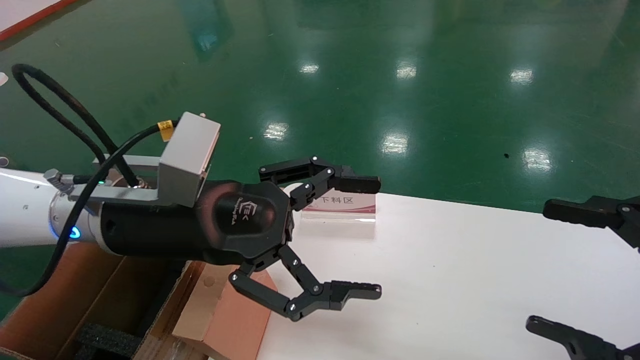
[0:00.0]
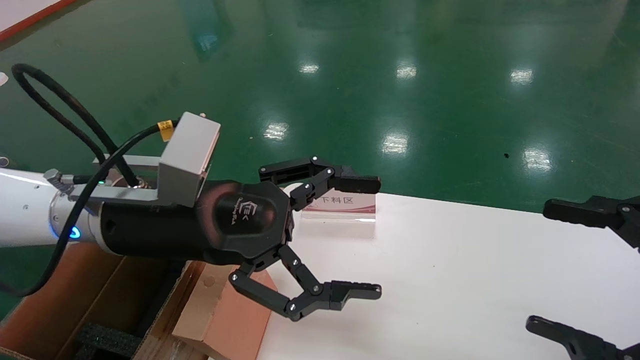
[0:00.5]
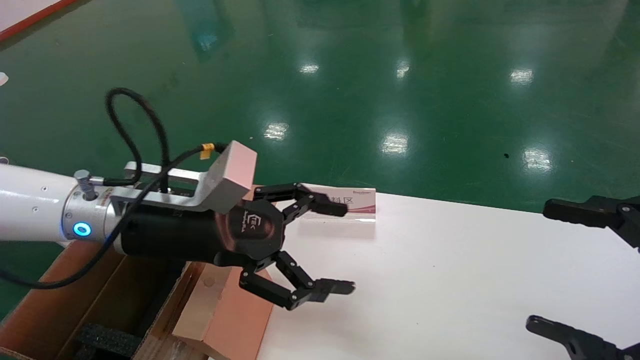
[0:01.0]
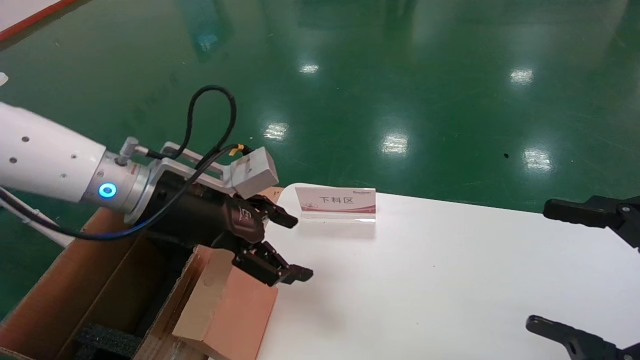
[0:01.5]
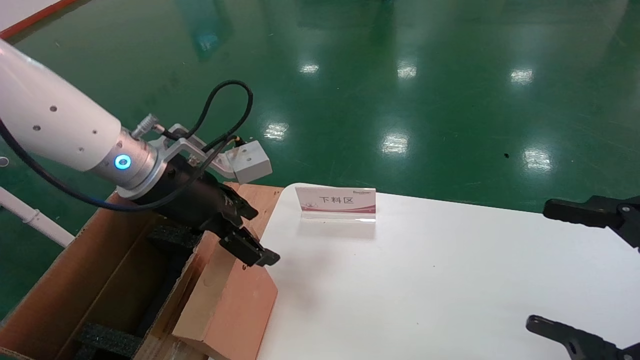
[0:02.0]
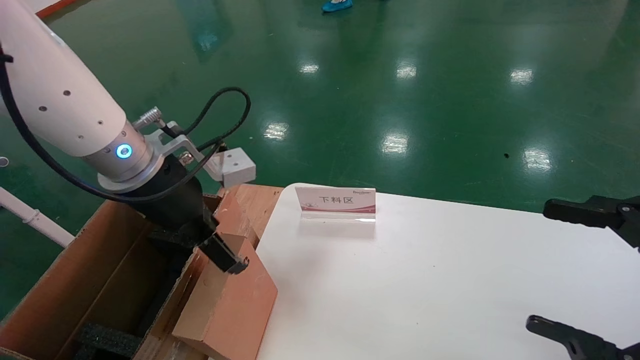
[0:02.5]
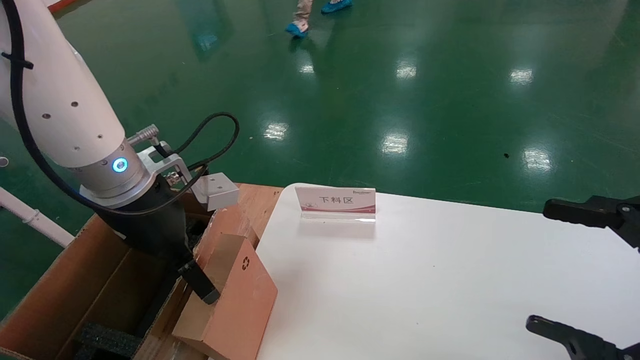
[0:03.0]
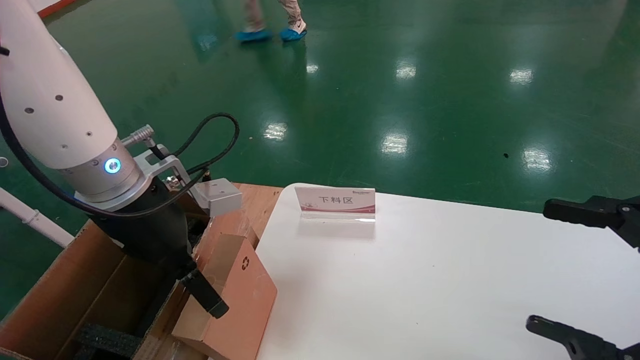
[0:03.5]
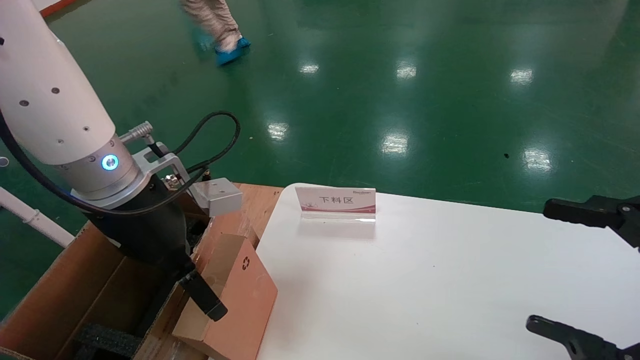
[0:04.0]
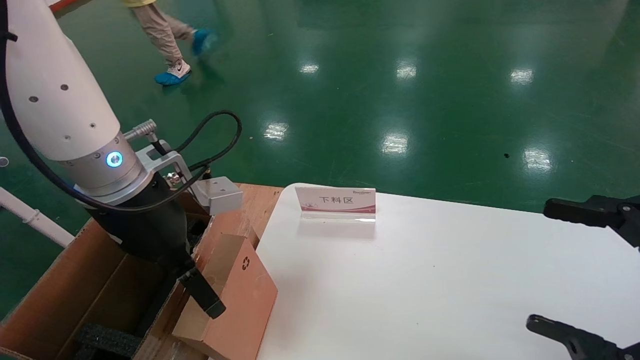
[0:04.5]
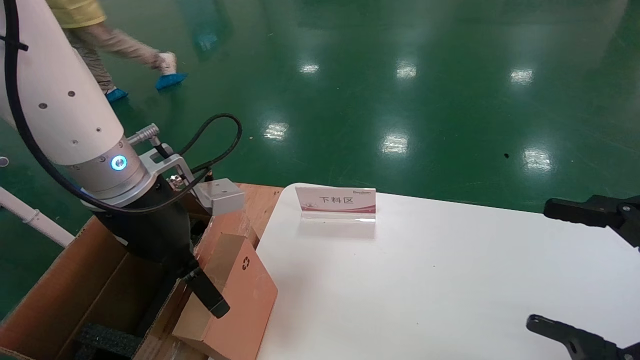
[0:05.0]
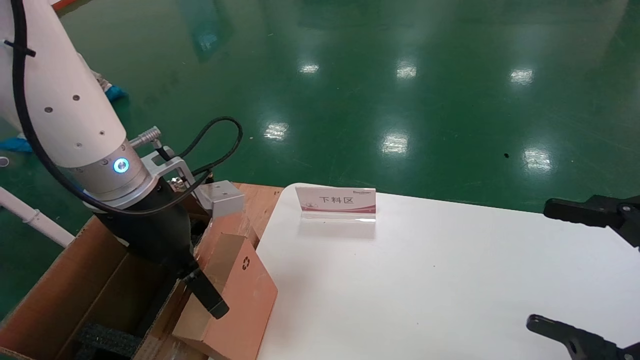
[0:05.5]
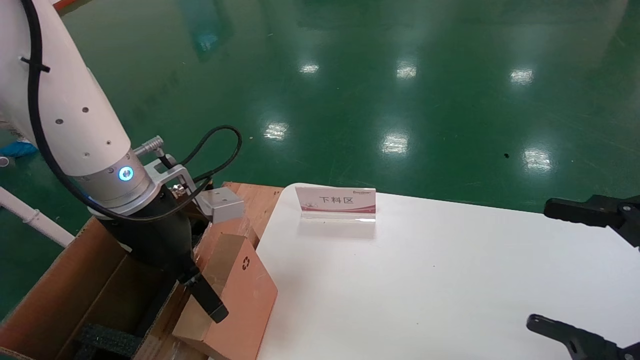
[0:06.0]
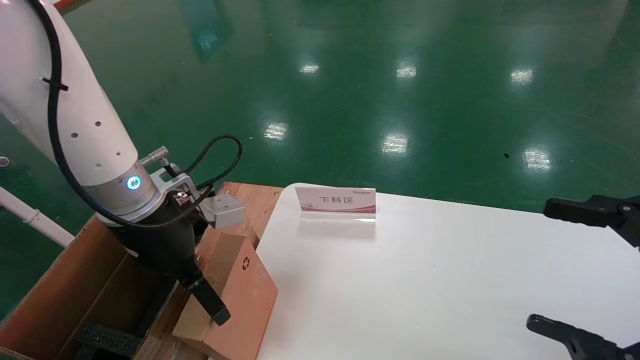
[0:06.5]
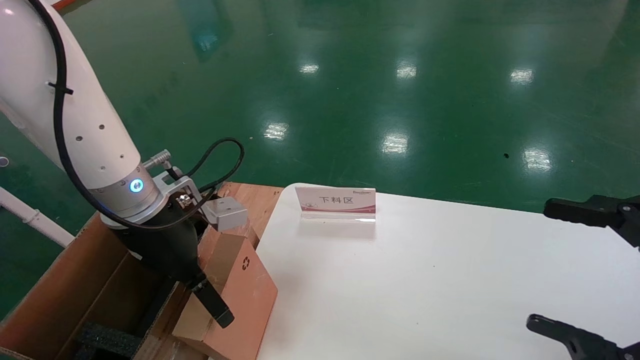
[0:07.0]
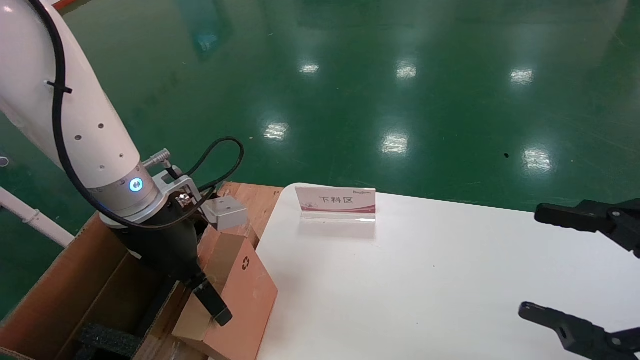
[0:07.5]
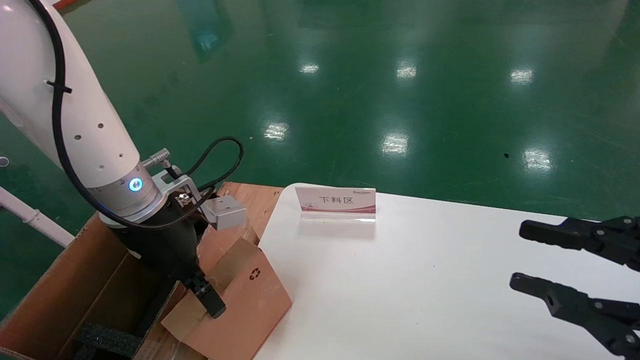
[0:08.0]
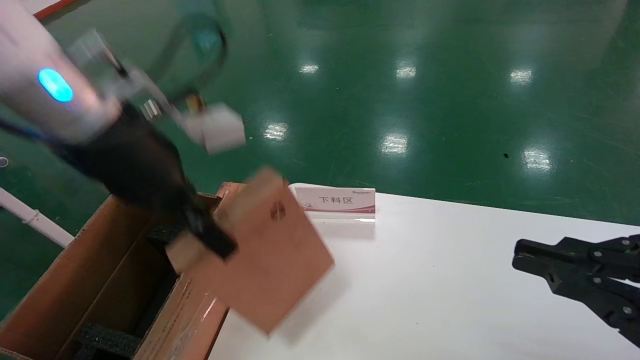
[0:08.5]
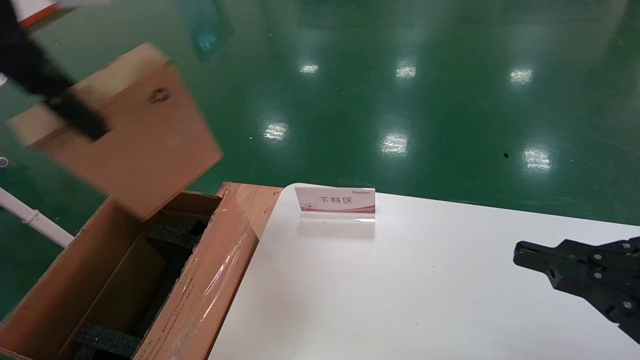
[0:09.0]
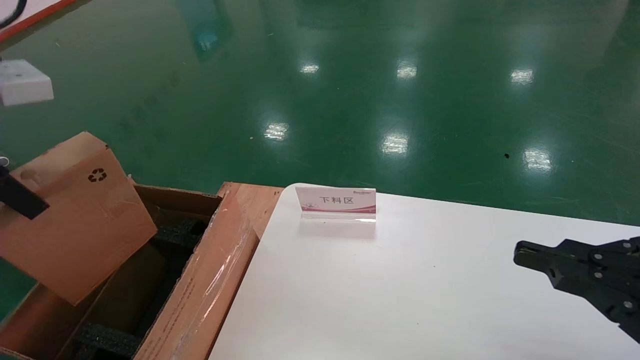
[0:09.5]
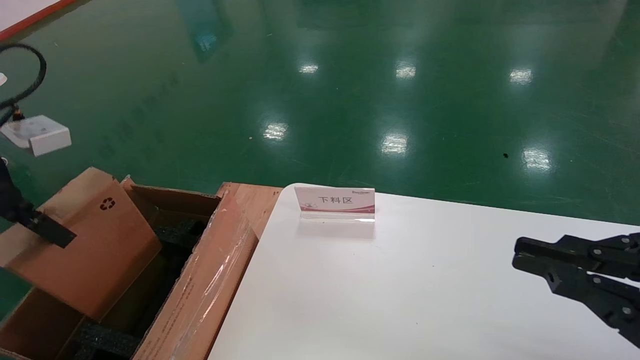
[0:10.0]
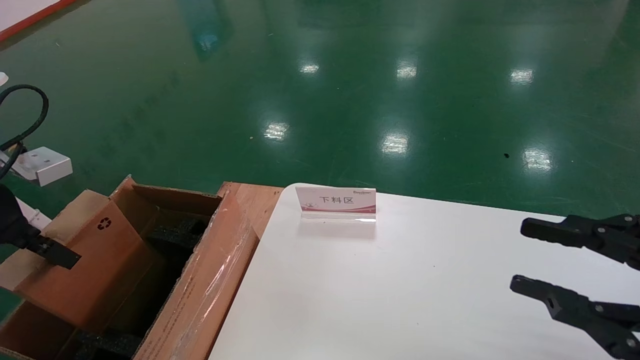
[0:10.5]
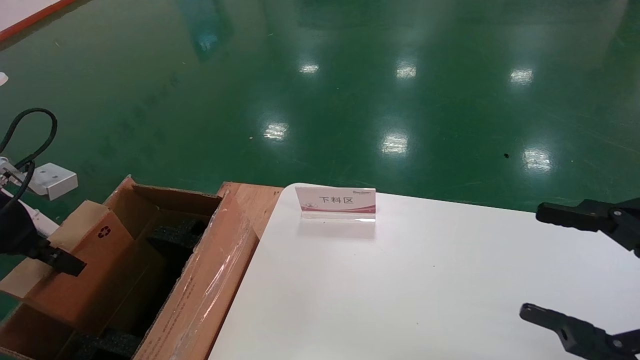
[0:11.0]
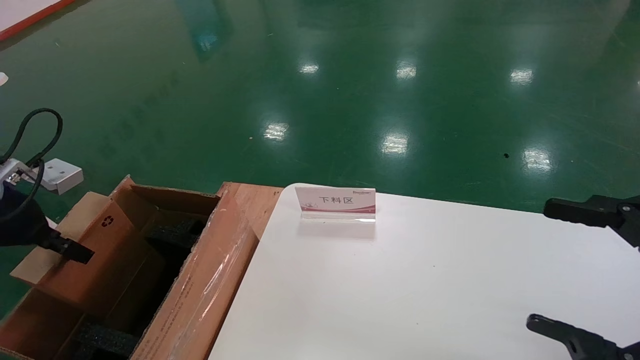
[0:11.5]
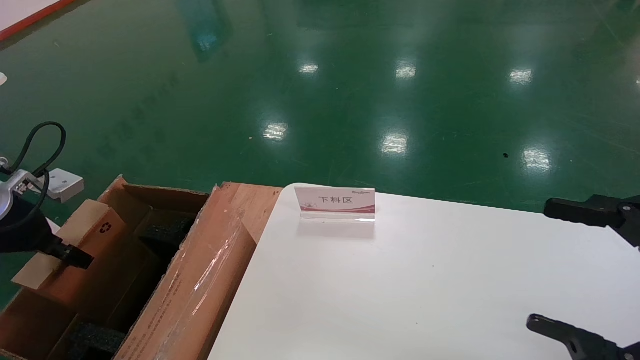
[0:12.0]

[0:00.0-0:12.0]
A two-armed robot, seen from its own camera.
Task of the whole recording: pick up the small cardboard box and load it into the large cardboard box.
Step, 0:01.0 to 0:08.5: Pick up the mouse and power cord box.
0:00.0 to 0:02.0: The left gripper is displaced forward by some 5 cm.
0:04.0 to 0:06.0: The grippers stay close to where they were, moving slightly.
0:06.0 to 0:08.0: The right gripper closes, while the left gripper closes its fingers.
0:08.0 to 0:10.0: The left gripper heads to the left, upward and backward, covering about 20 cm, and closes its fingers. Meanwhile the right gripper closes up.
0:10.0 to 0:12.0: The right gripper opens up. Meanwhile the left gripper moves downward and to the left, roughly 15 cm.

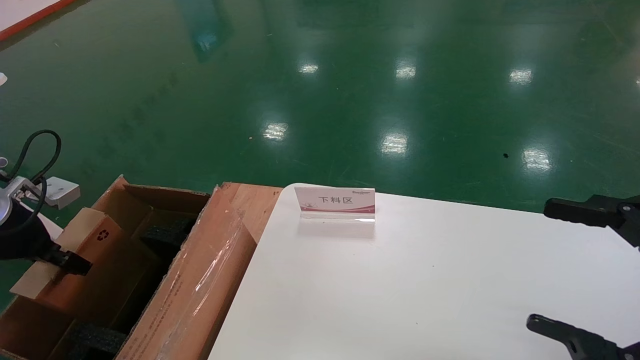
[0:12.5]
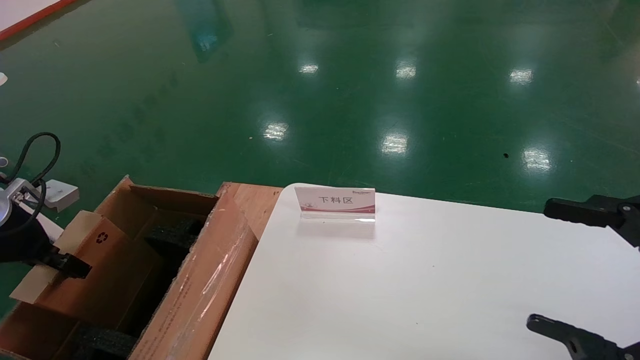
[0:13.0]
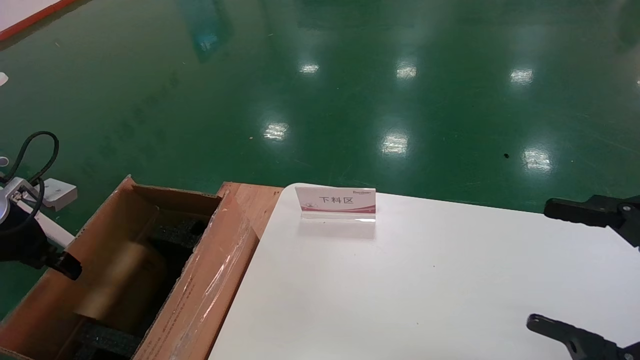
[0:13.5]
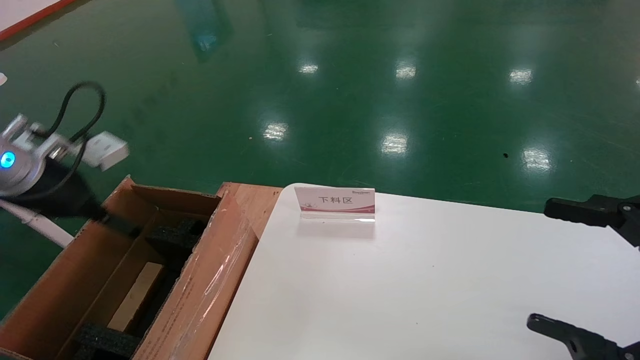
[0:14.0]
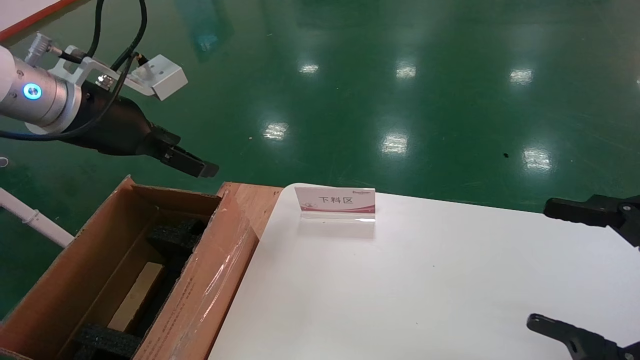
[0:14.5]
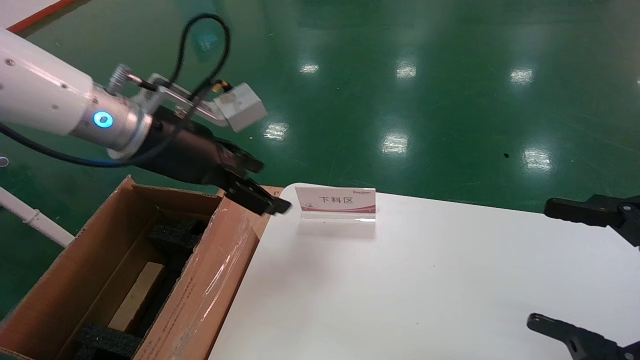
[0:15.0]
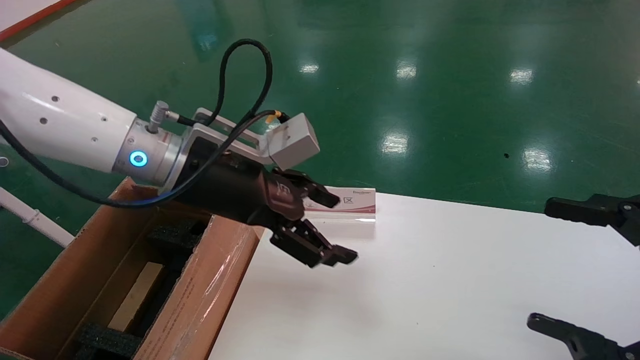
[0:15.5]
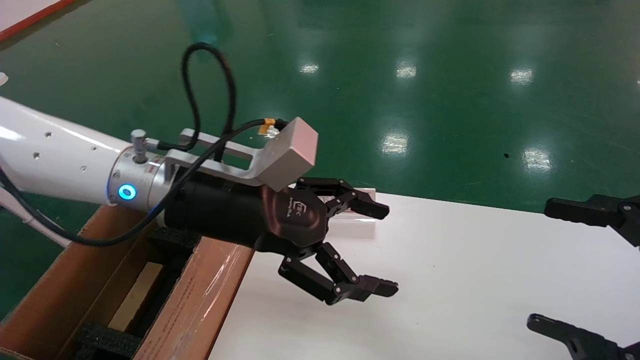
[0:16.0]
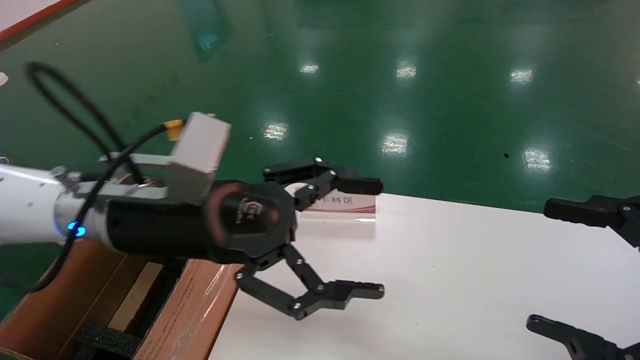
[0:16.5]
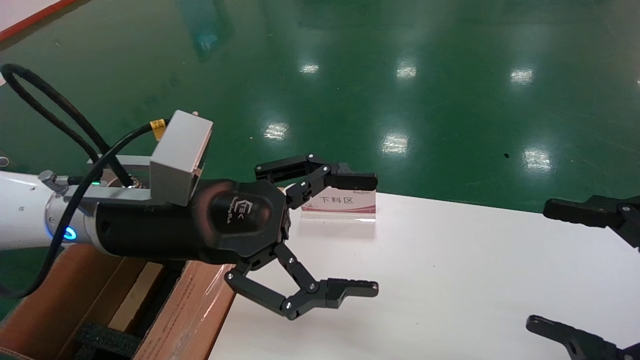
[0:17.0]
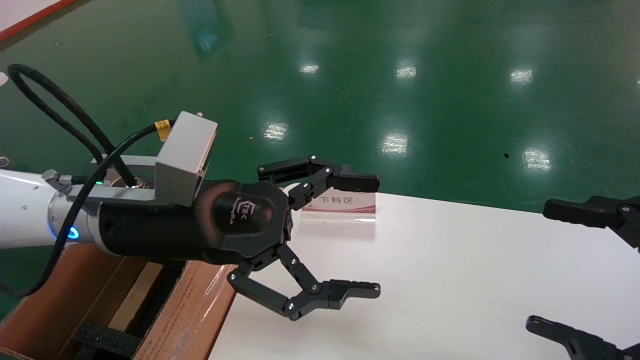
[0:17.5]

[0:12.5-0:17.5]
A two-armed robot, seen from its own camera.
Task of the whole recording: pick up the small cardboard box and load it into the large cardboard box.
0:12.5 to 0:15.0: The left gripper goes approximately 25 cm to the right and upward, and opens up.
0:15.0 to 0:17.5: The left gripper is displaced backward and downward by some 10 cm.
